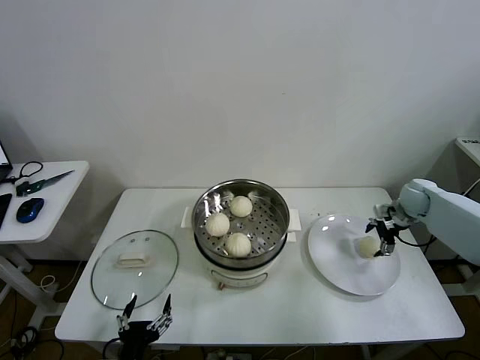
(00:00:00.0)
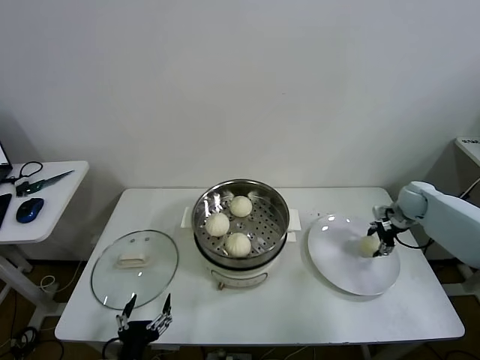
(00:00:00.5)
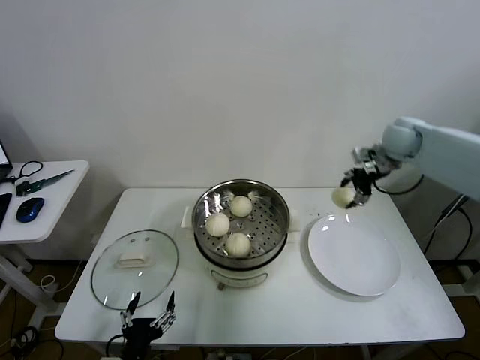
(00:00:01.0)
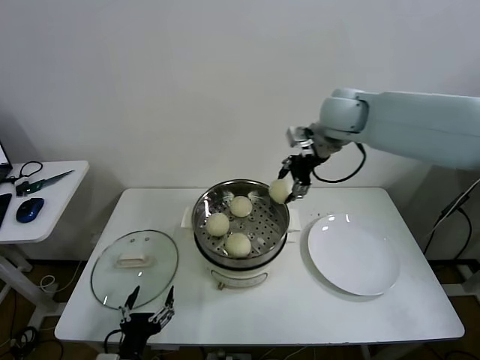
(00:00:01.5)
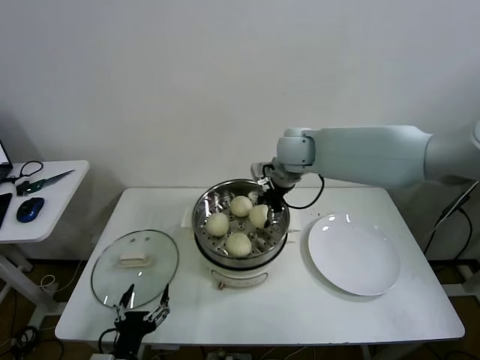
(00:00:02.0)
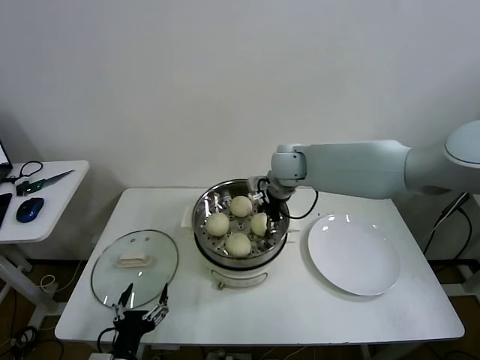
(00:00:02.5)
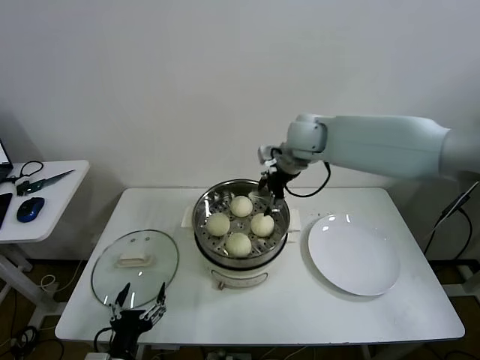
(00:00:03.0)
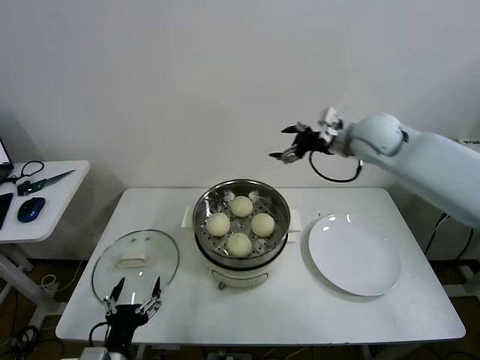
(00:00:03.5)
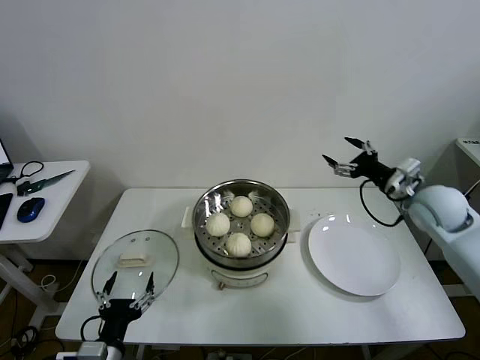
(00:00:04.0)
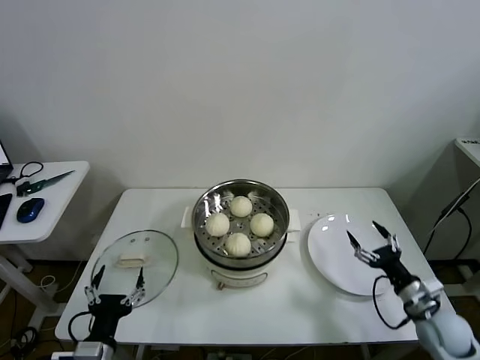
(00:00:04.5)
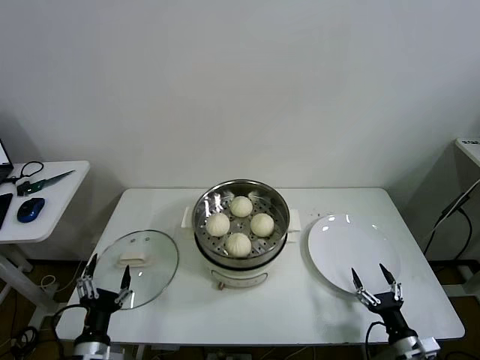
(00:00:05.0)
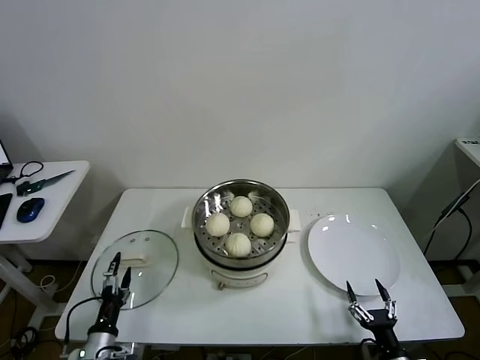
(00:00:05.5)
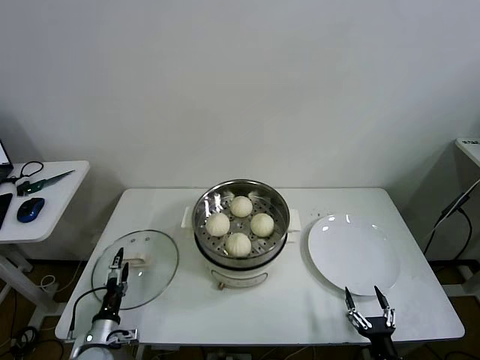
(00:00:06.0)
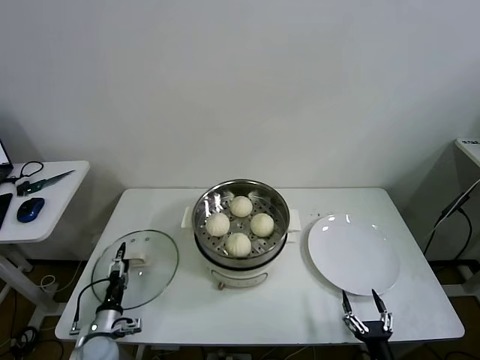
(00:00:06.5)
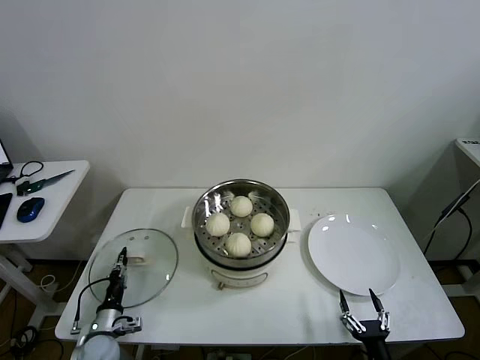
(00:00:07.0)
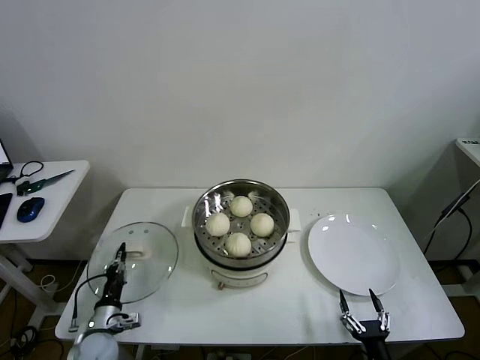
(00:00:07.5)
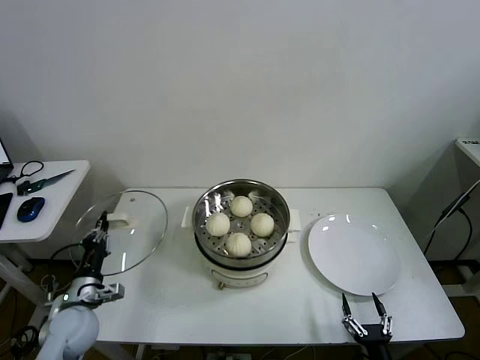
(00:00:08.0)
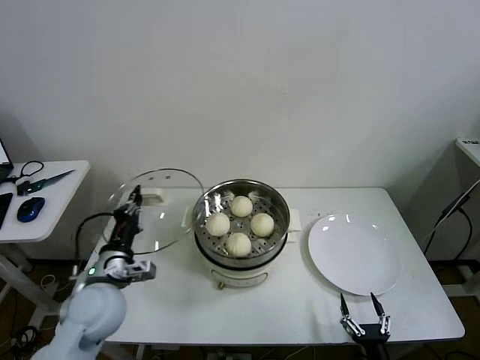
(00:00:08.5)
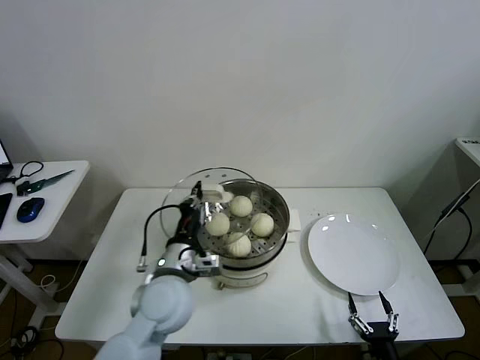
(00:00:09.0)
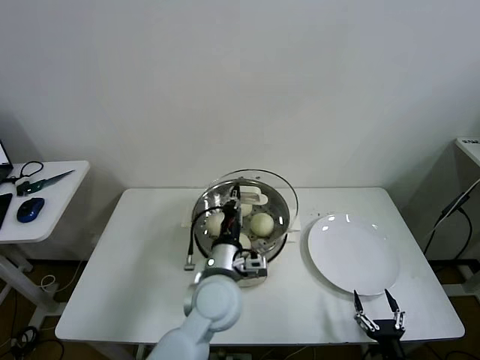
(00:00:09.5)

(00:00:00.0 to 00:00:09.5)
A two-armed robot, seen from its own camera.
Task of the whole recording: take steamed baozi put them in steamer then cover it.
Step, 00:00:00.5 - 00:00:02.5: Place the baozi on the steamer with right gripper.
Step, 00:00:03.0 - 00:00:07.0: Grasp the pot lid with left gripper.
00:00:00.0 - 00:00:02.0: The right gripper goes some 40 cm to the left and upward, and closes up.
00:00:02.0 - 00:00:04.0: The right gripper is displaced to the right and backward by approximately 30 cm, and opens its fingers.
00:00:04.0 - 00:00:05.5: The left gripper travels downward and to the left by some 15 cm, while the right gripper heads downward and backward, covering roughly 40 cm.
00:00:05.5 - 00:00:07.5: The left gripper is displaced forward by about 5 cm, and closes its fingers.
00:00:07.5 - 00:00:09.5: The left gripper moves to the right and upward, about 35 cm.

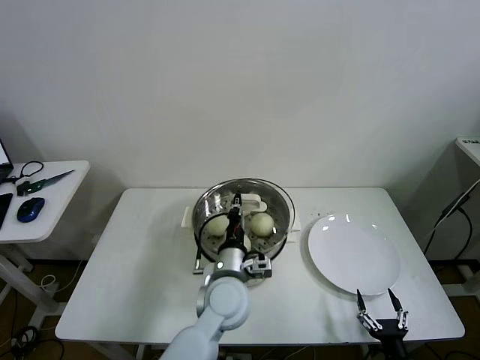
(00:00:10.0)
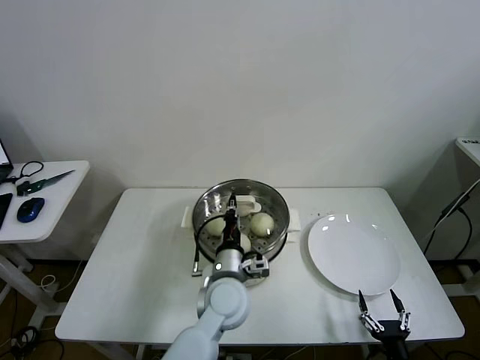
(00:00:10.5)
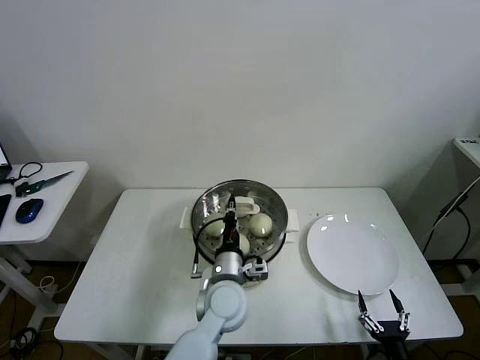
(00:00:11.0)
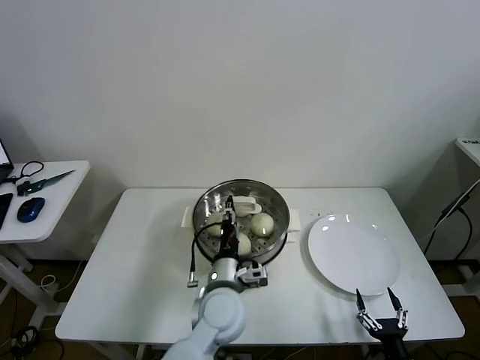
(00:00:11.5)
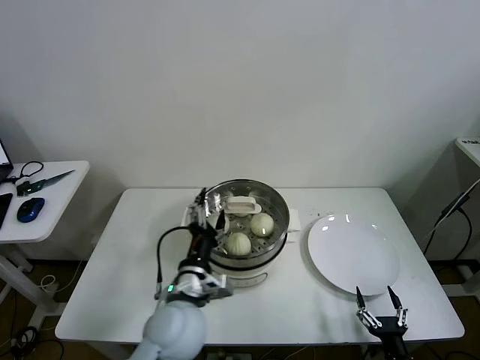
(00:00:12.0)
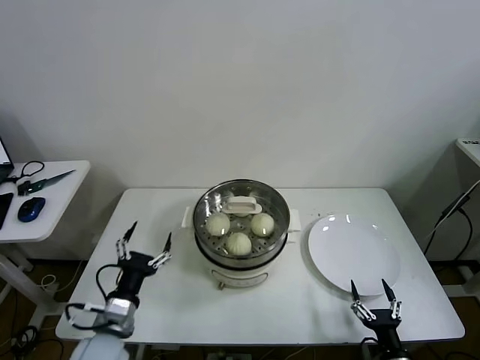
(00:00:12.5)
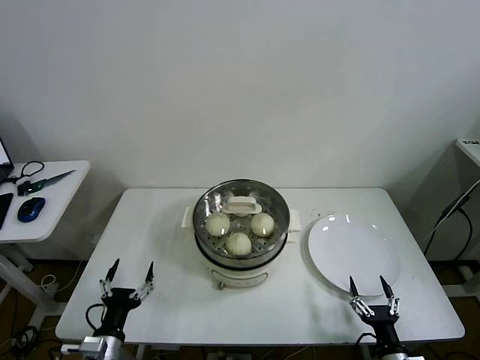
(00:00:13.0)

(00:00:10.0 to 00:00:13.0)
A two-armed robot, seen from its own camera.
Task of the whole recording: take steamed baozi put them in steamer then cover it.
00:00:10.0 - 00:00:11.5: The left gripper opens its fingers.
00:00:11.5 - 00:00:13.0: The left gripper is displaced to the left and backward by approximately 30 cm, and opens up.

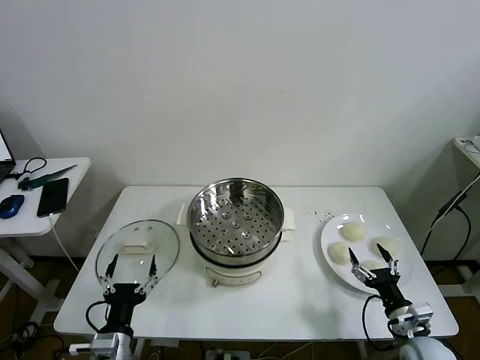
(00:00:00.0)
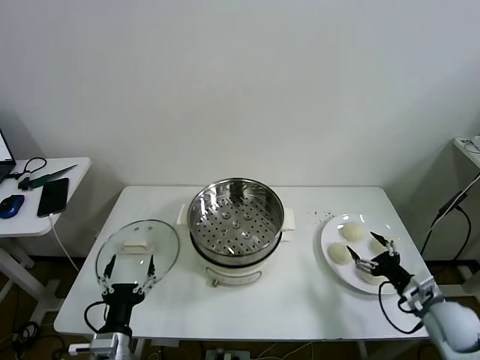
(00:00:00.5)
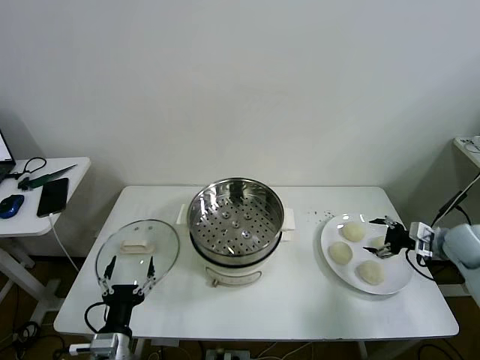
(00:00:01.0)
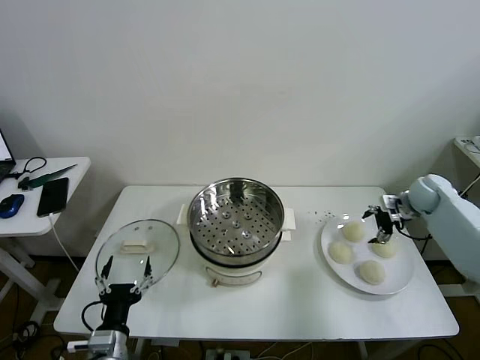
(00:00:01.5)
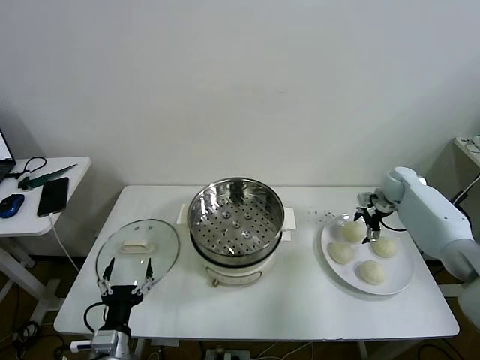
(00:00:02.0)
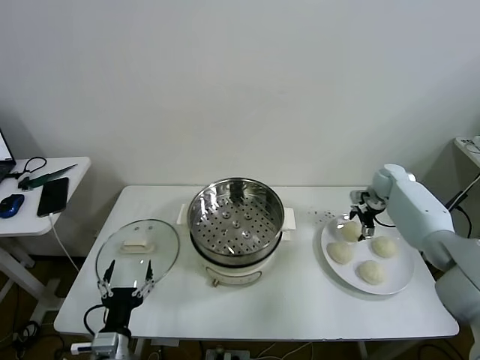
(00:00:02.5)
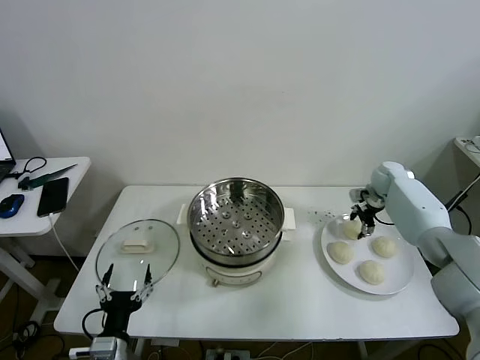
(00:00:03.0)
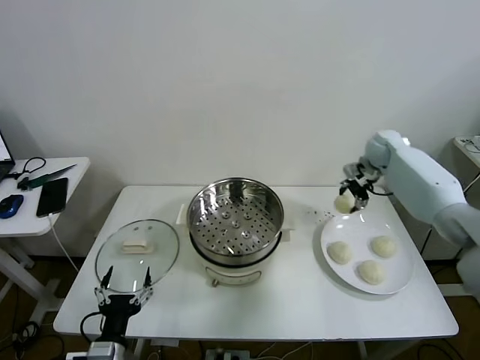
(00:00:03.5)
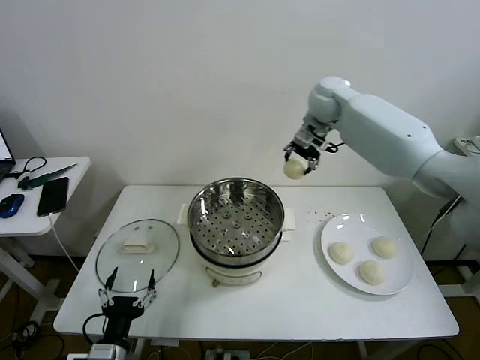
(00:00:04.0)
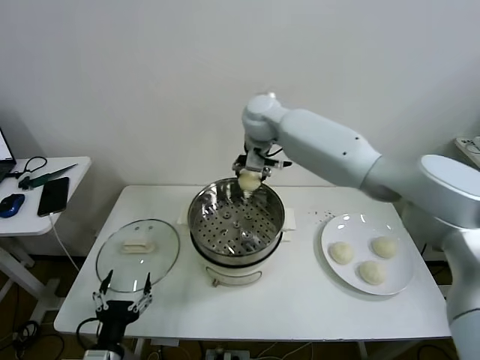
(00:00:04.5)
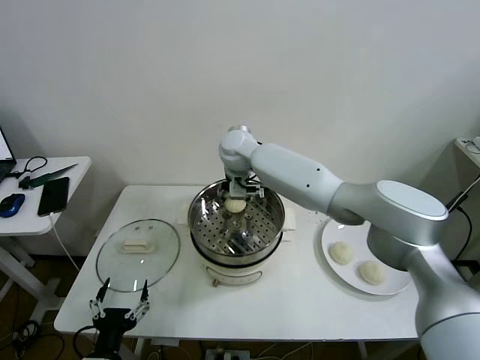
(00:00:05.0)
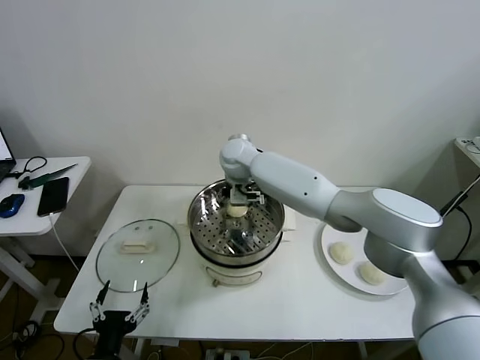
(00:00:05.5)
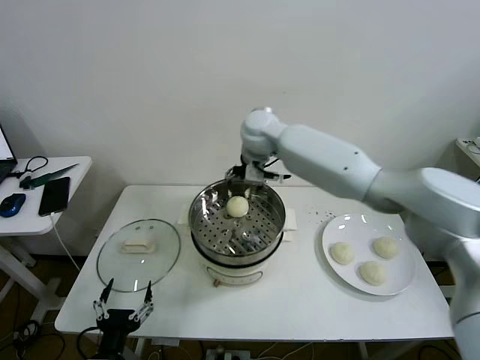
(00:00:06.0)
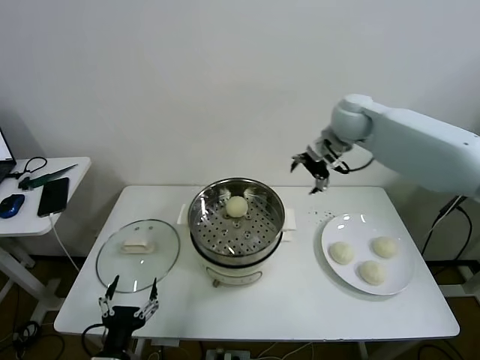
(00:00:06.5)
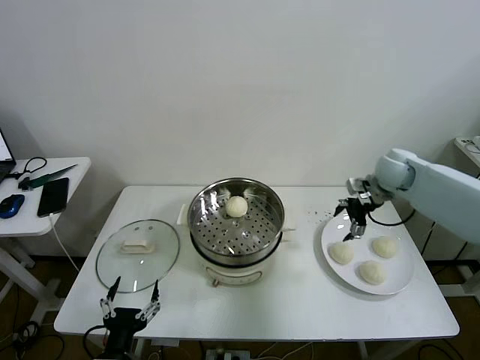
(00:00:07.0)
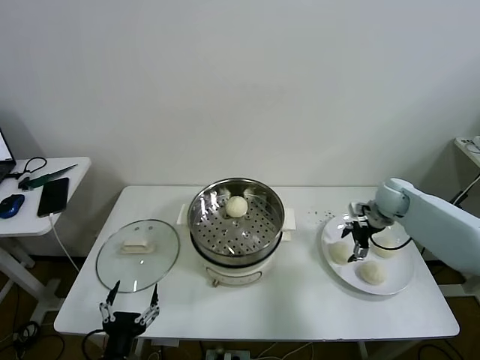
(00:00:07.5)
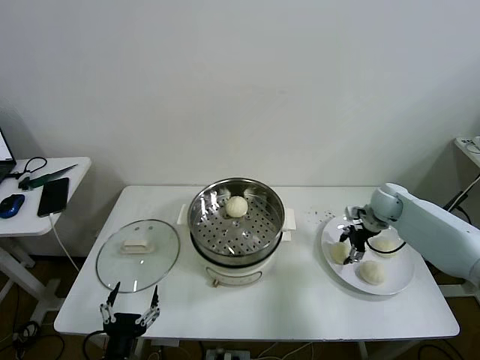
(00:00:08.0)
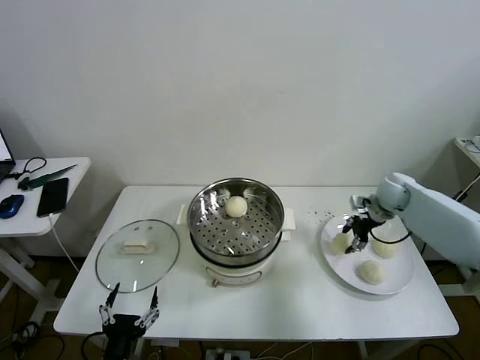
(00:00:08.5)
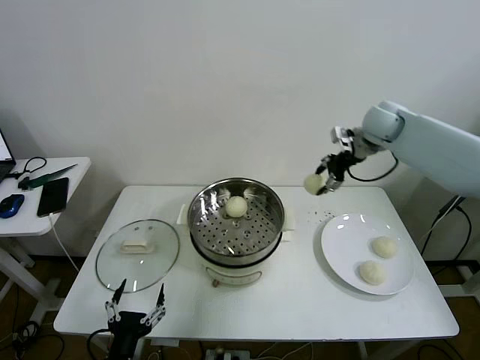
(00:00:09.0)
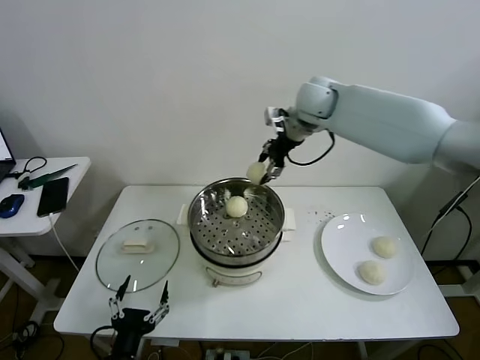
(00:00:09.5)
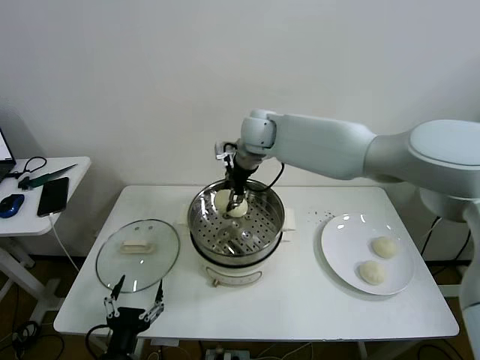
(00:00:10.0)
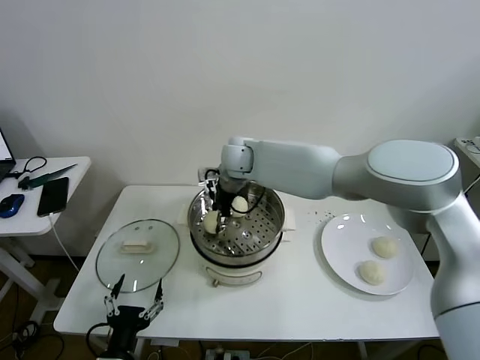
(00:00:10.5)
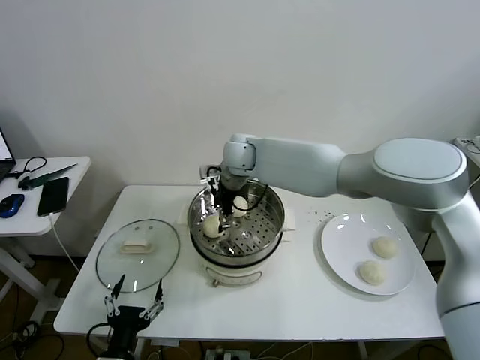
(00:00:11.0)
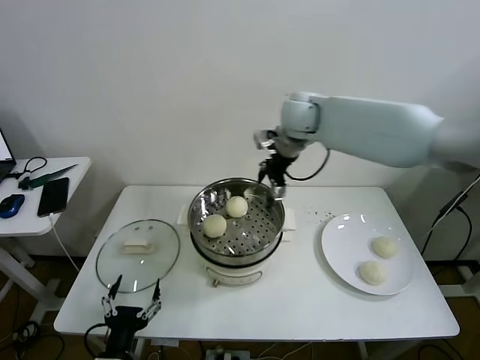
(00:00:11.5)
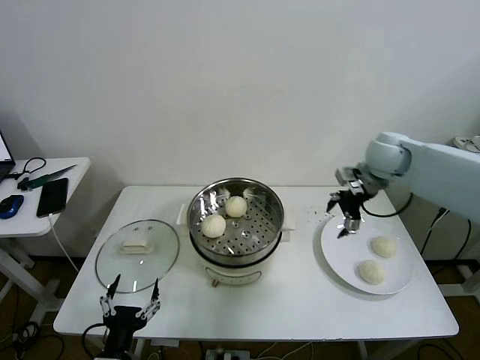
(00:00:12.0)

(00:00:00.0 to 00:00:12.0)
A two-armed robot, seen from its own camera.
Task of the whole recording: take steamed baozi put them in steamer then cover it.
Step, 00:00:00.0 - 00:00:02.5: Grasp the baozi in the plate with right gripper.
Step, 00:00:03.0 - 00:00:05.5: Place the baozi on the steamer with right gripper.
Step, 00:00:06.0 - 00:00:08.0: Grasp the baozi in the plate with right gripper.
Step, 00:00:08.5 - 00:00:10.5: Place the baozi on the steamer with right gripper.
00:00:02.0 - 00:00:04.0: The right gripper travels to the left and upward by some 35 cm, and closes its fingers.
00:00:04.0 - 00:00:06.0: The right gripper moves to the left, approximately 10 cm, and opens.
00:00:06.0 - 00:00:08.0: The right gripper heads to the right and downward, covering approximately 40 cm, and closes its fingers.
00:00:08.0 - 00:00:10.0: The right gripper goes approximately 40 cm to the left and upward.
00:00:10.0 - 00:00:12.0: The right gripper is displaced to the right by approximately 30 cm, and opens.
